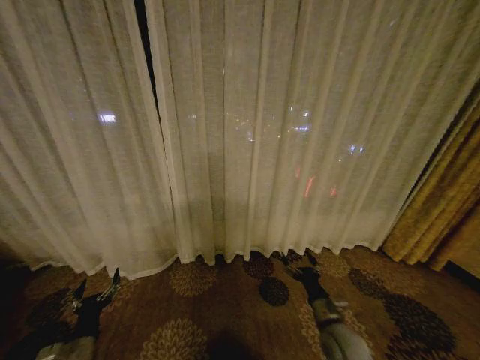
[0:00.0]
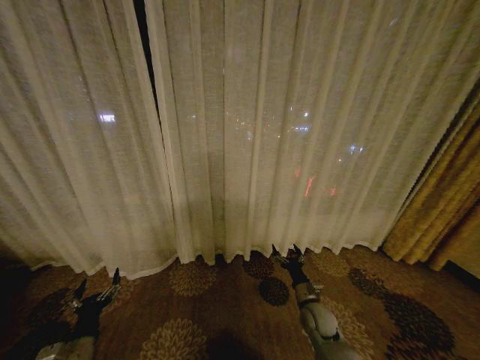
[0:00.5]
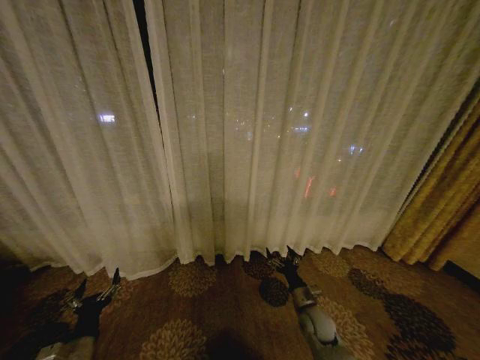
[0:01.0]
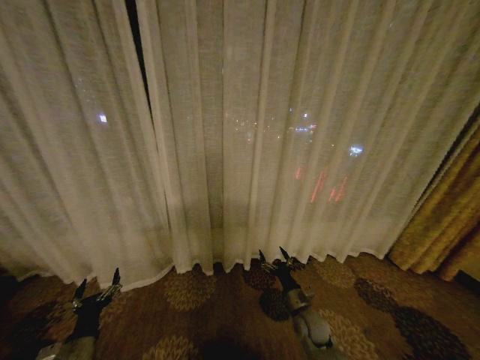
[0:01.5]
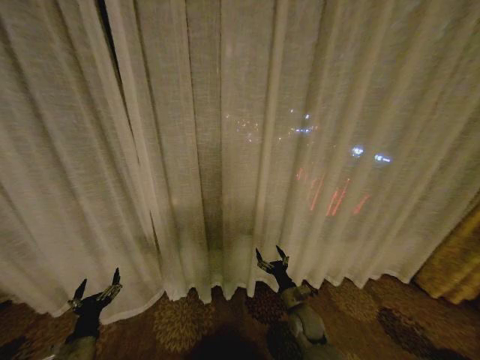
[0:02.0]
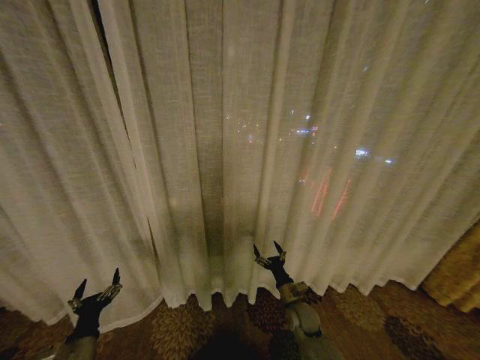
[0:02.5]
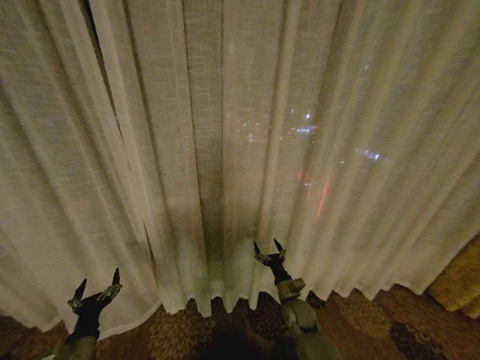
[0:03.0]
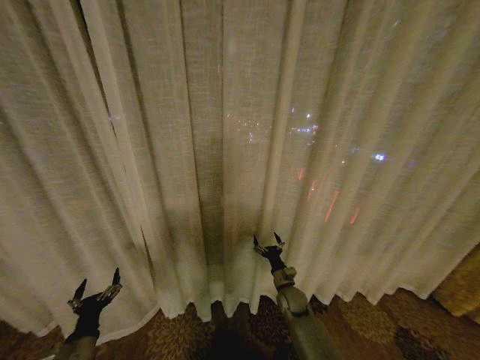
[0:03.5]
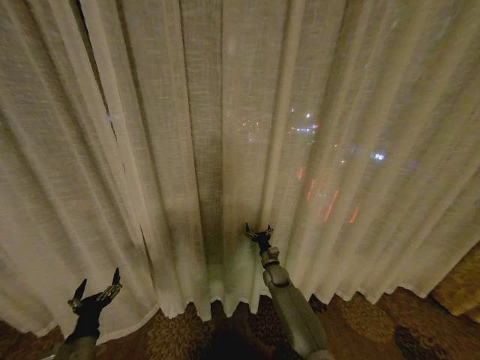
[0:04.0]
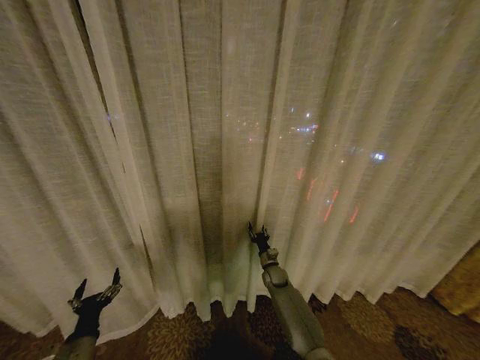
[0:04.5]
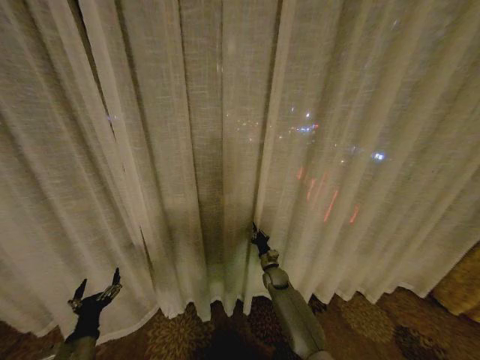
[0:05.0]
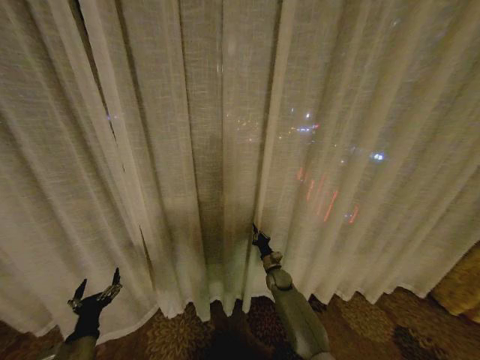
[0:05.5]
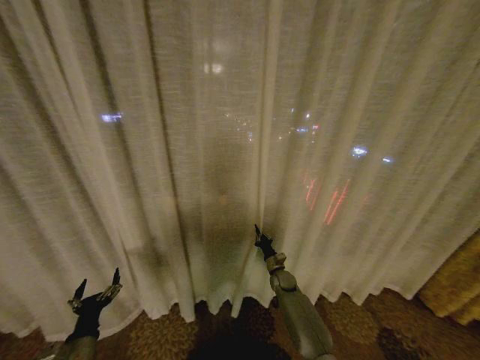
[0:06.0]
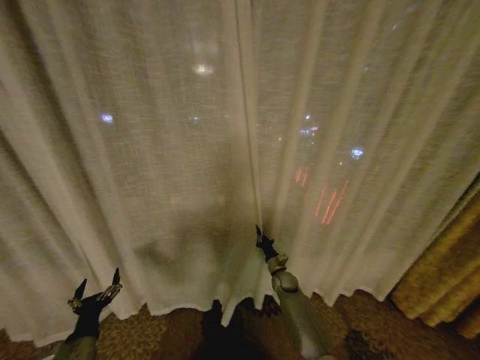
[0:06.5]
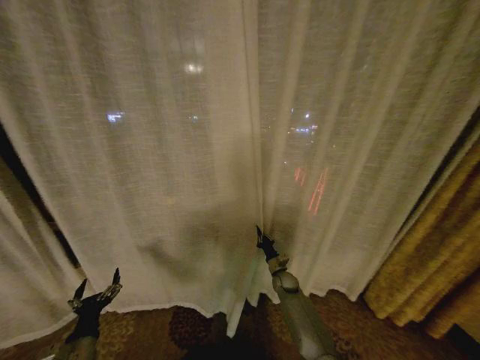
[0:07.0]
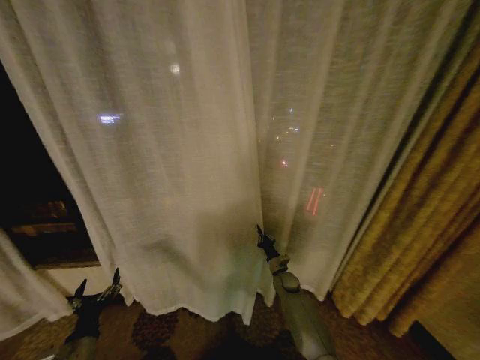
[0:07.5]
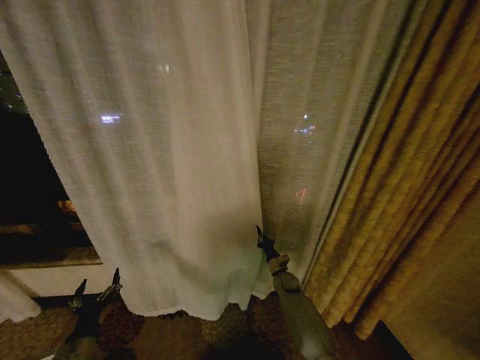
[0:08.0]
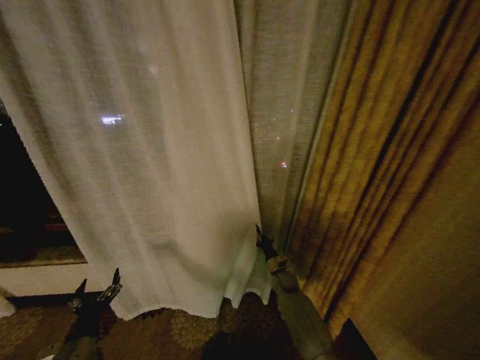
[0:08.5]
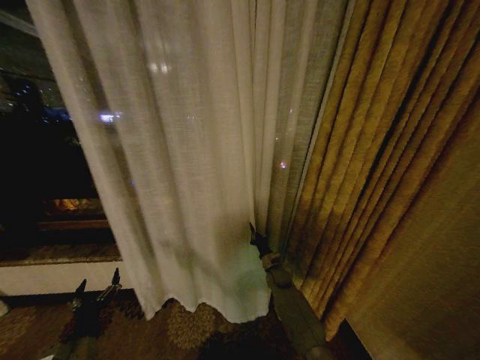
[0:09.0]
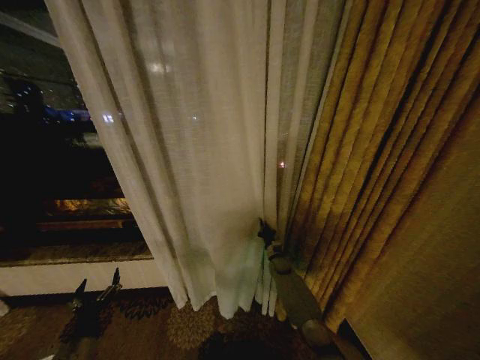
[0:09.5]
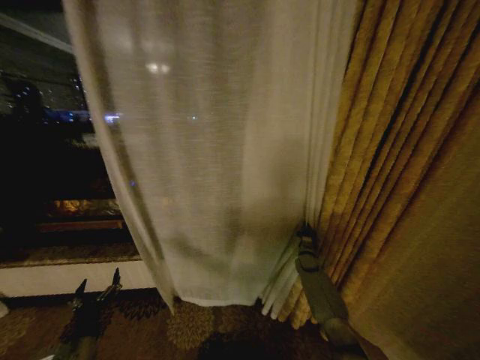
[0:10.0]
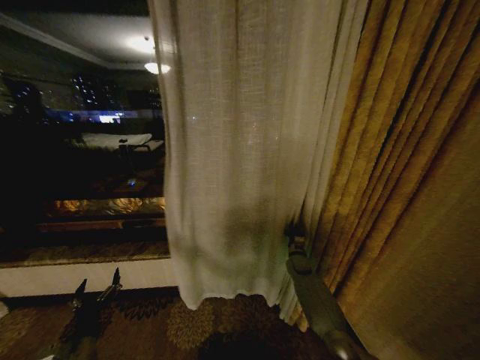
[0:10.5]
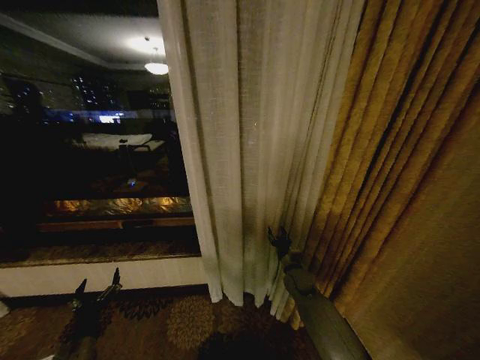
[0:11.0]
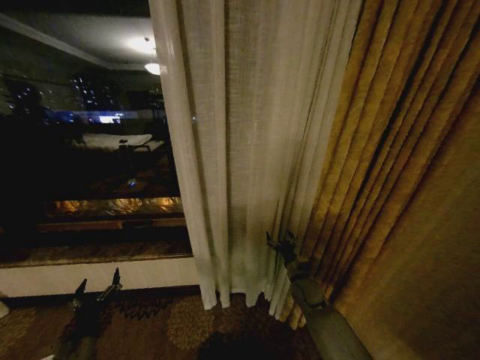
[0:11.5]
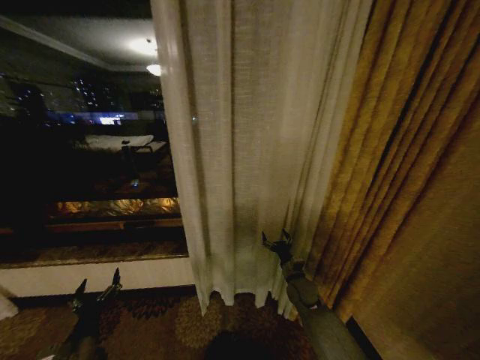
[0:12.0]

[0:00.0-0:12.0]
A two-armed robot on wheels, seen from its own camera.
Task of the whole recording: Open the curtains by pulling them apart, changing their state from closed to fully open.
0:02.0 to 0:04.0: The right gripper moves forward, some 15 cm.
0:04.0 to 0:06.0: The right gripper closes its fingers.
0:08.0 to 0:10.0: The right gripper goes approximately 15 cm to the right and forward.
0:10.0 to 0:12.0: The right gripper goes about 15 cm backward and to the left, and opens up.

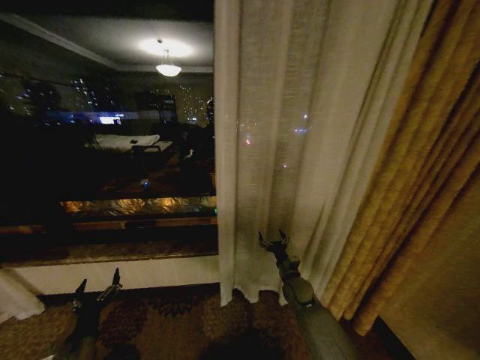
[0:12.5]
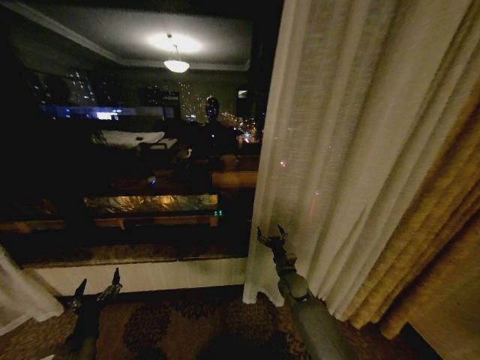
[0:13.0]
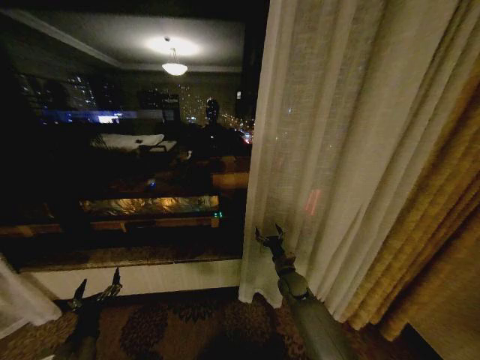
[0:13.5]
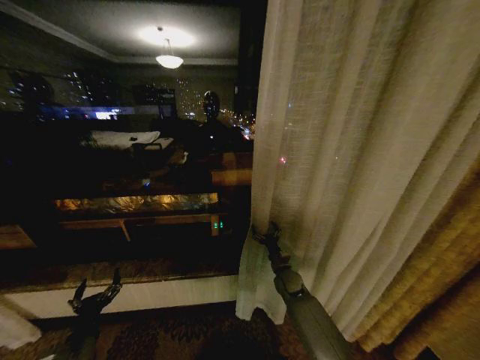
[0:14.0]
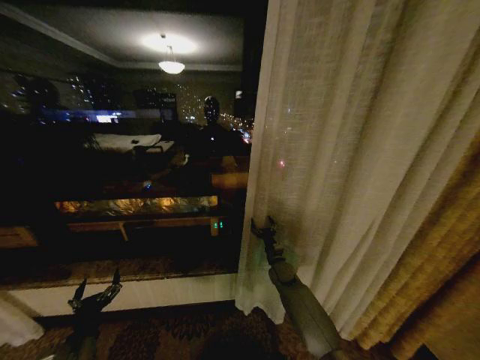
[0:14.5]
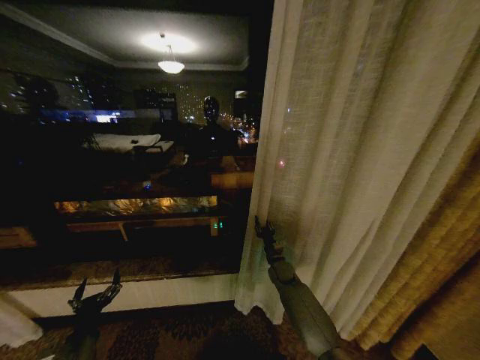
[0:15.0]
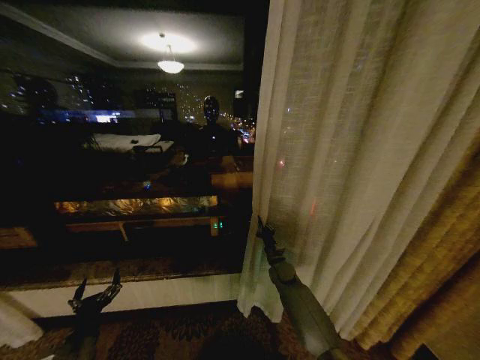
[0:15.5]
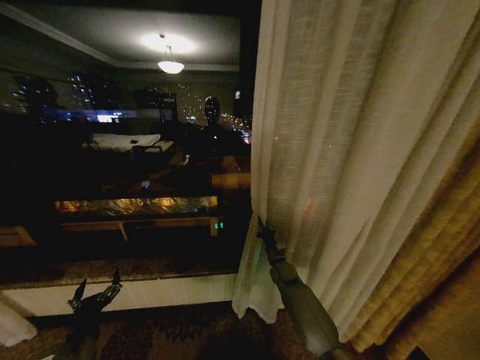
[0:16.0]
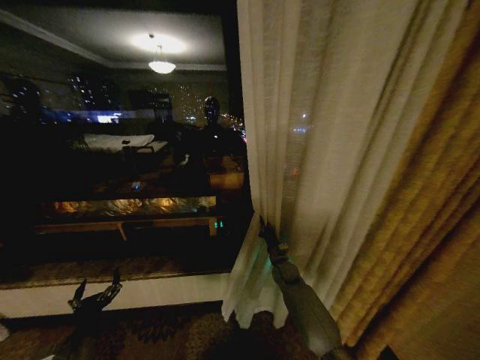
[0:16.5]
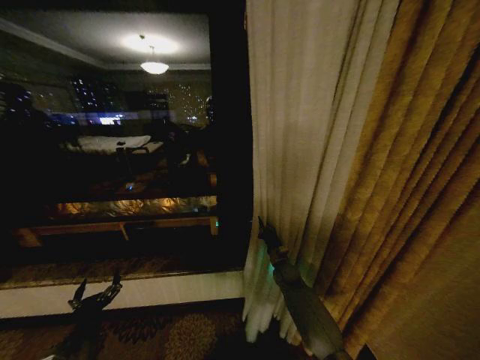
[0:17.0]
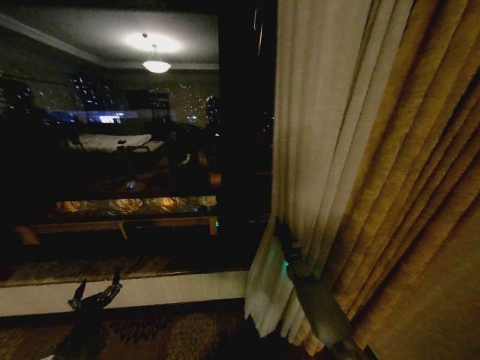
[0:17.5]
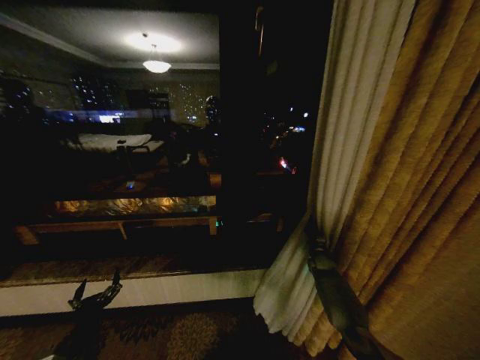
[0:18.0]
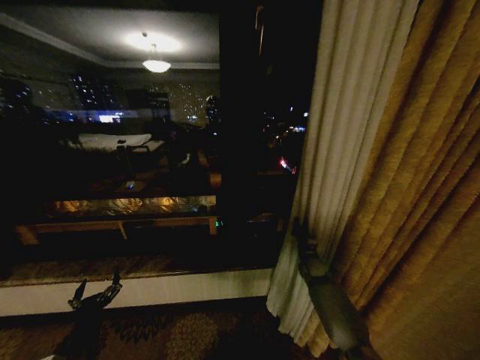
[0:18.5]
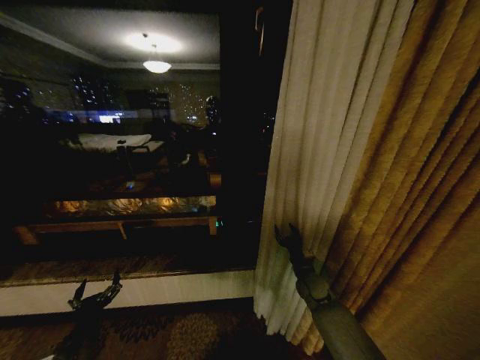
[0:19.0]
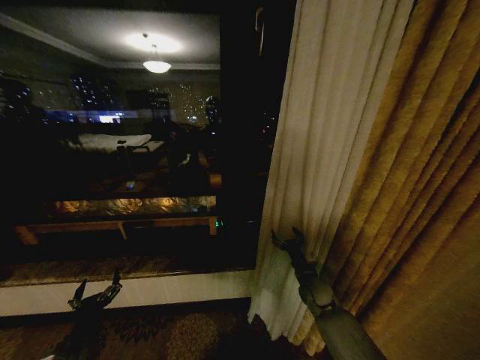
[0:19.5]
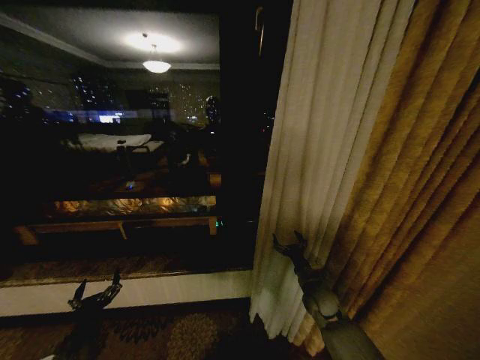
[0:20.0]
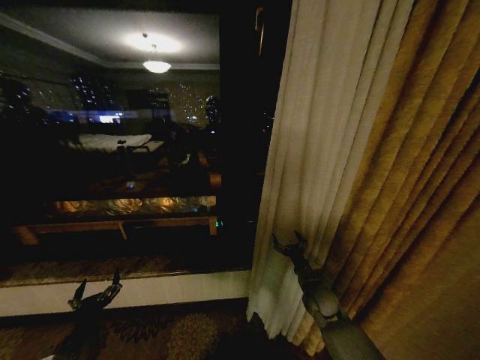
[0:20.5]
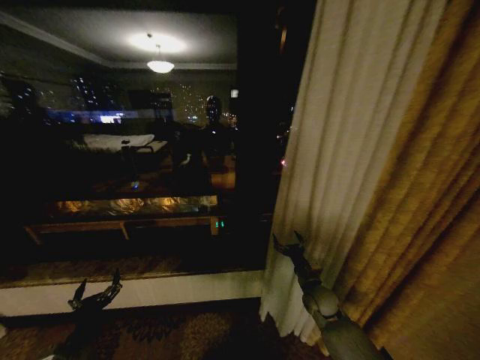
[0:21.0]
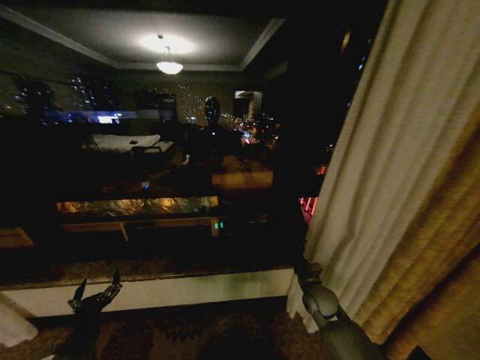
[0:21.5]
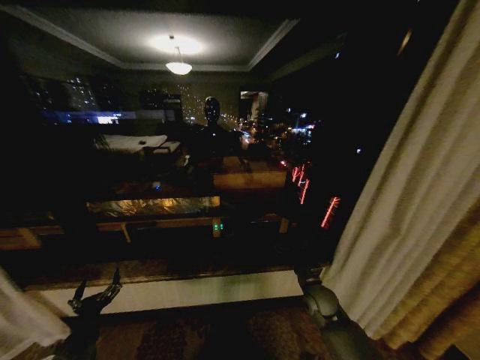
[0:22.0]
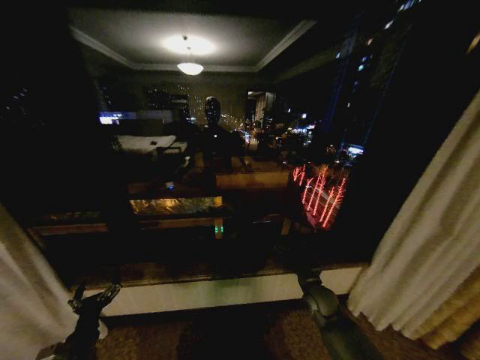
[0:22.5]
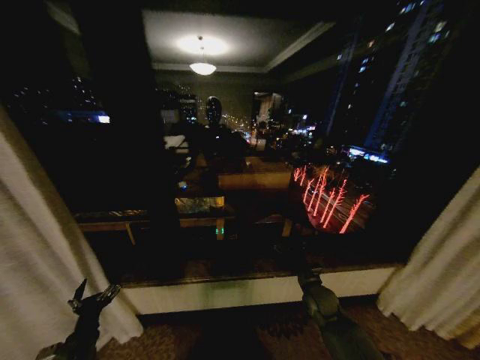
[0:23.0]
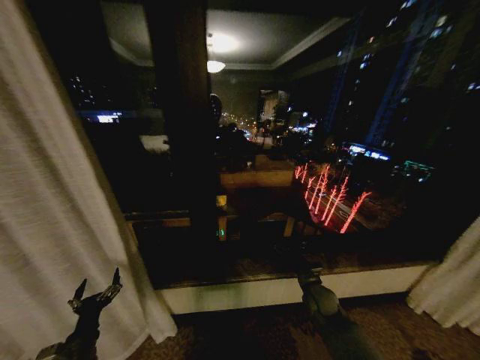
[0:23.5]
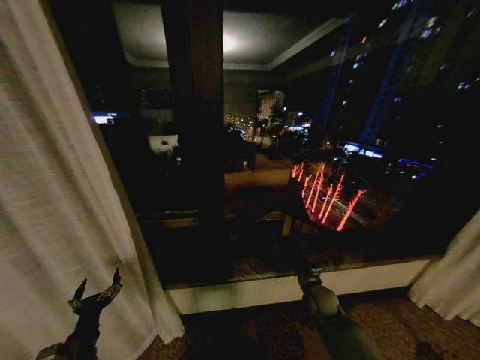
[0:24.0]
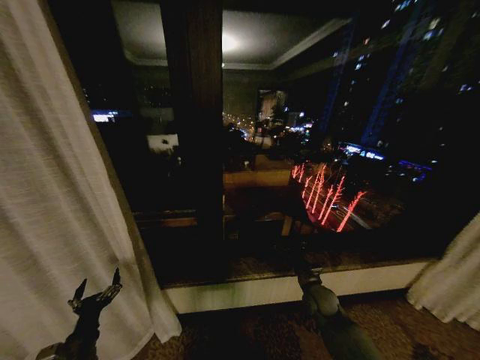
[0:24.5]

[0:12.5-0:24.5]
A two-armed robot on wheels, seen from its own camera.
Task of the whole recording: Open the curtains by pulling them apart, changing their state from closed to fully open.
0:12.5 to 0:14.5: The right gripper moves forward, about 5 cm.
0:14.5 to 0:16.5: The right gripper closes up.
0:16.5 to 0:18.5: The right gripper travels to the right by approximately 10 cm.
0:18.5 to 0:20.5: The right gripper is displaced backward by about 10 cm, and opens up.

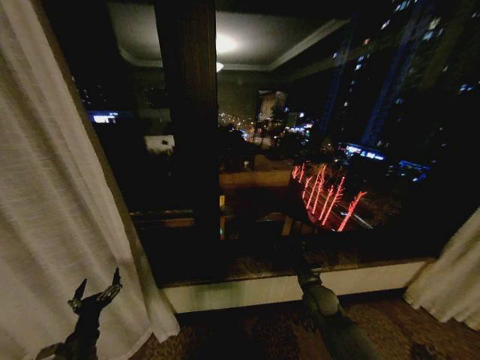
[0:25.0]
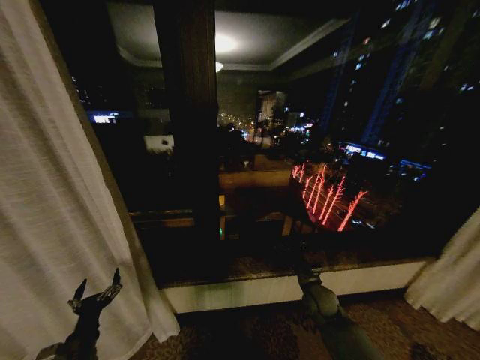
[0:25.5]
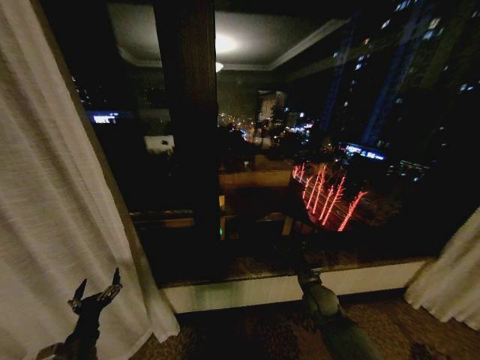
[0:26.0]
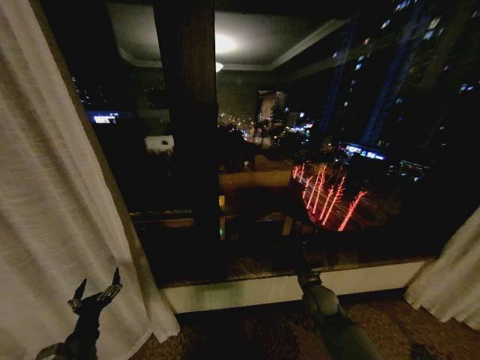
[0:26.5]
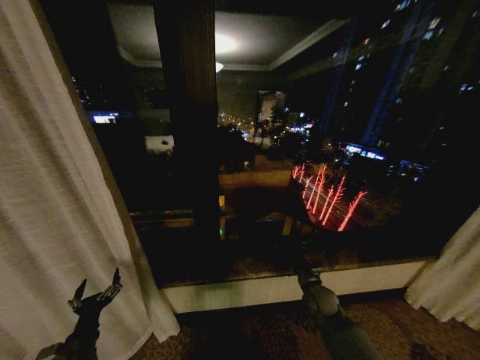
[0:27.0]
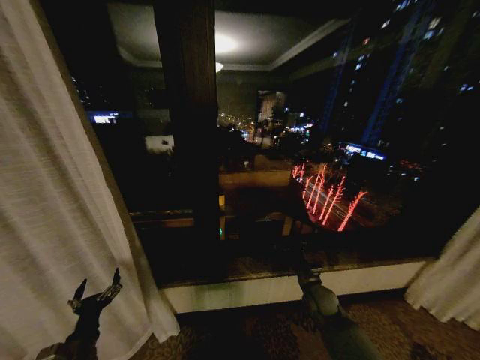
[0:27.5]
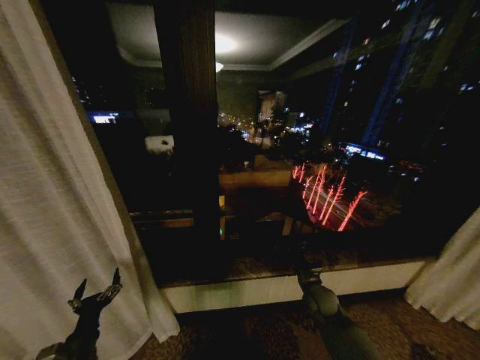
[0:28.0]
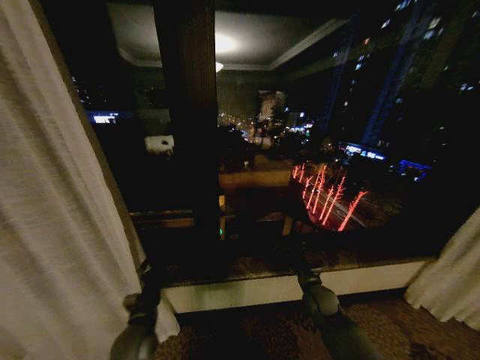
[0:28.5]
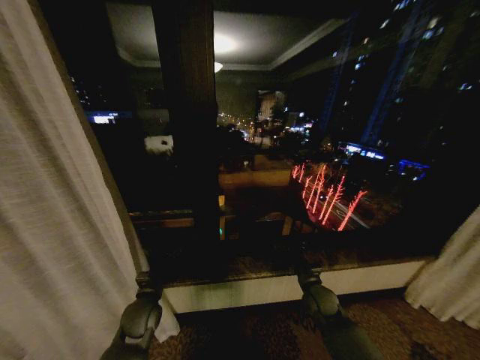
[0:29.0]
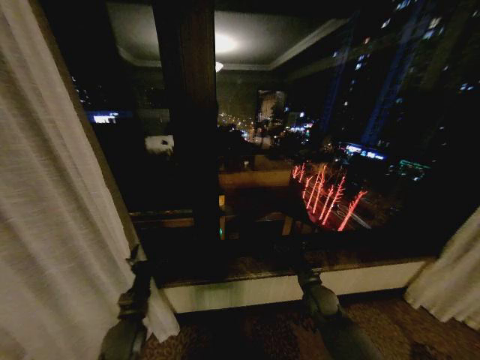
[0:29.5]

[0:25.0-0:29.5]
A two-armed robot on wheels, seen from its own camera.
Task of the whole recording: Open the curtains by pulling them apart, changing their state from closed to fully open.
0:25.0 to 0:27.0: Both grippers stay put.
0:27.0 to 0:29.5: The left gripper is displaced forward and to the right by about 15 cm.
